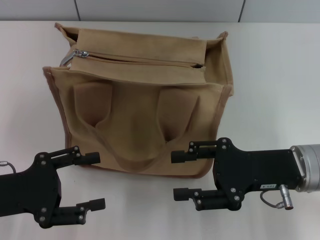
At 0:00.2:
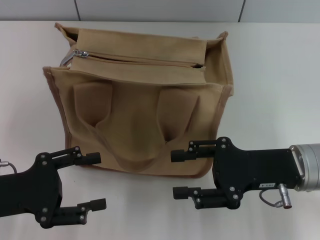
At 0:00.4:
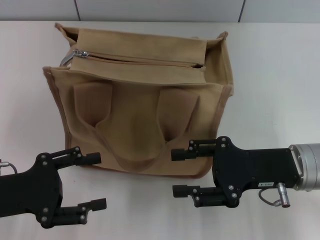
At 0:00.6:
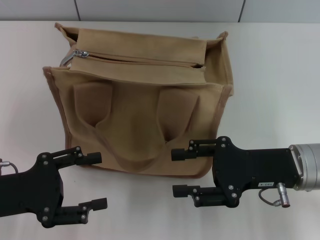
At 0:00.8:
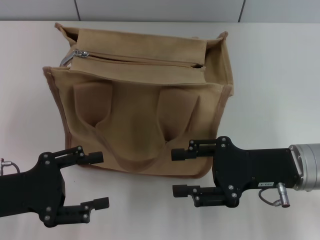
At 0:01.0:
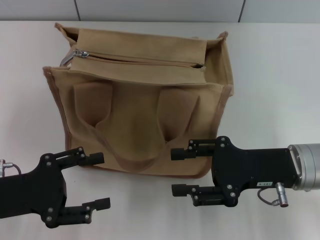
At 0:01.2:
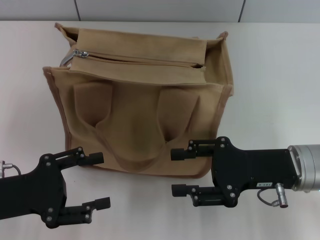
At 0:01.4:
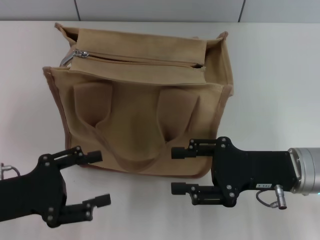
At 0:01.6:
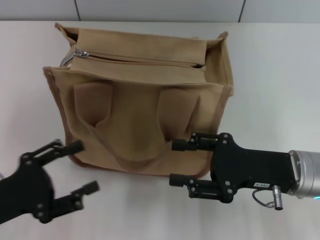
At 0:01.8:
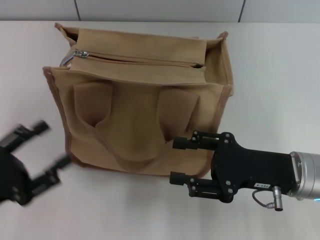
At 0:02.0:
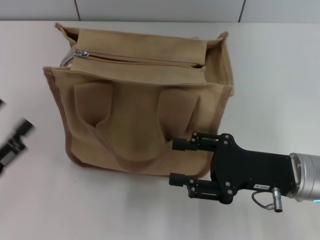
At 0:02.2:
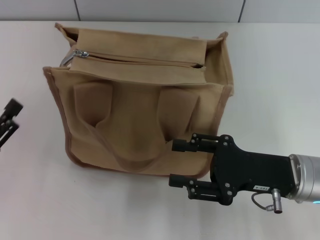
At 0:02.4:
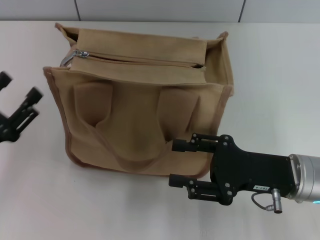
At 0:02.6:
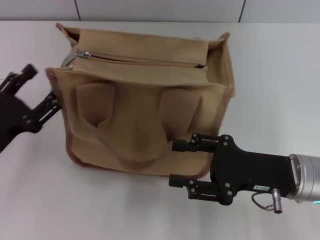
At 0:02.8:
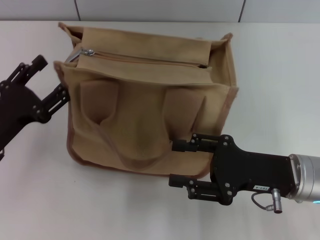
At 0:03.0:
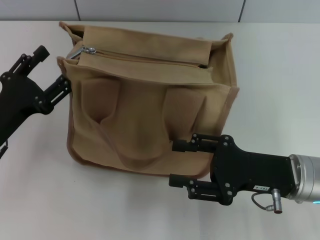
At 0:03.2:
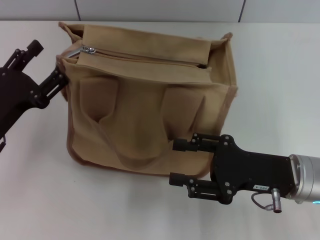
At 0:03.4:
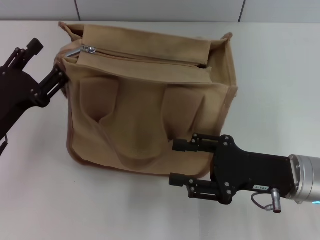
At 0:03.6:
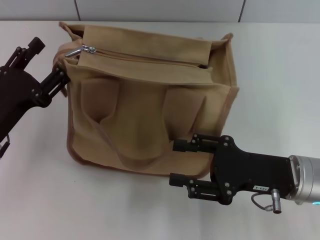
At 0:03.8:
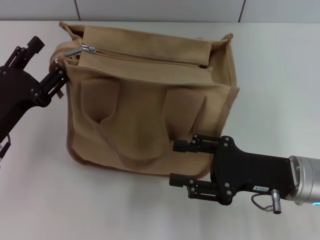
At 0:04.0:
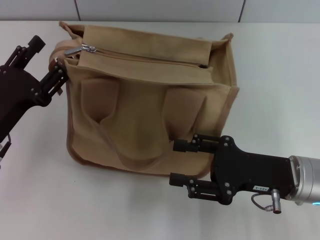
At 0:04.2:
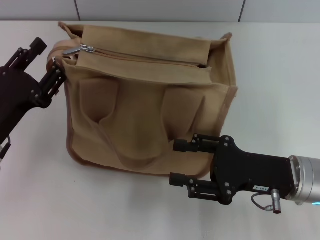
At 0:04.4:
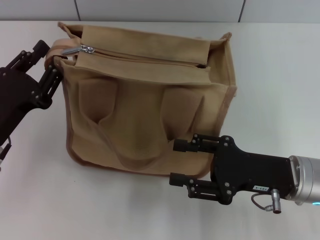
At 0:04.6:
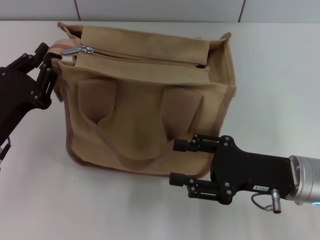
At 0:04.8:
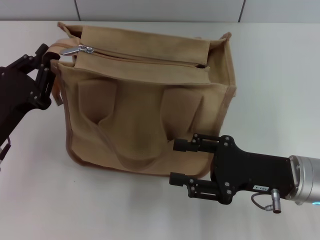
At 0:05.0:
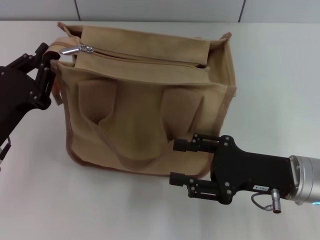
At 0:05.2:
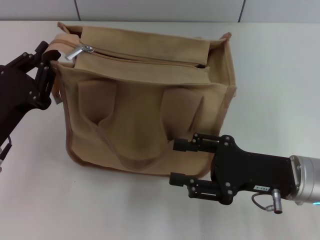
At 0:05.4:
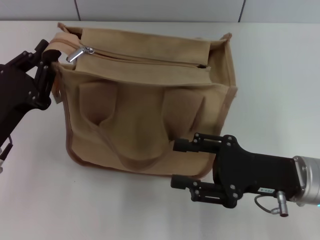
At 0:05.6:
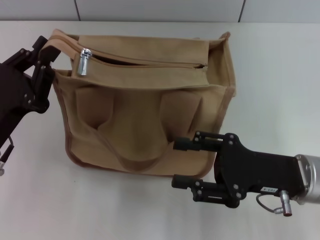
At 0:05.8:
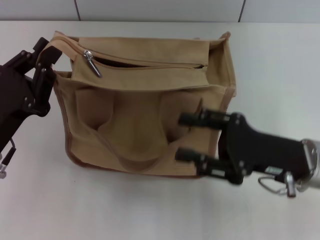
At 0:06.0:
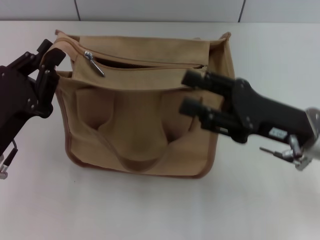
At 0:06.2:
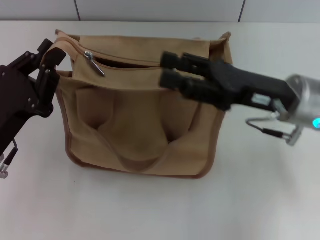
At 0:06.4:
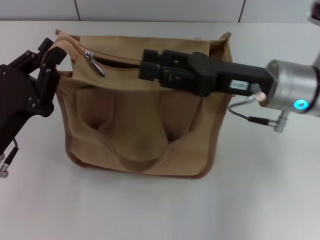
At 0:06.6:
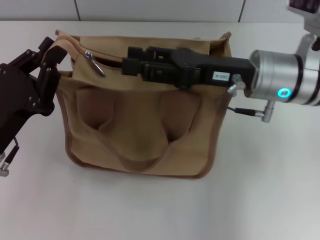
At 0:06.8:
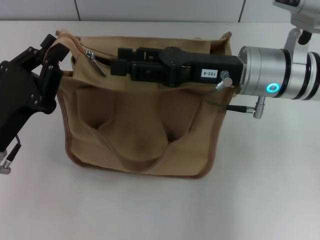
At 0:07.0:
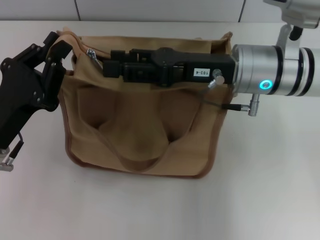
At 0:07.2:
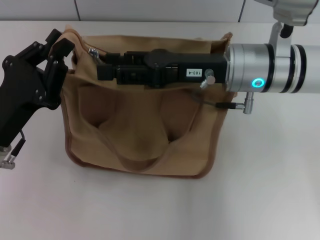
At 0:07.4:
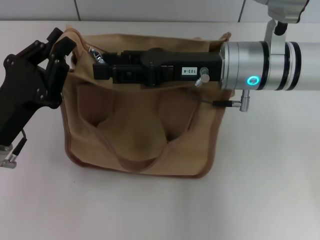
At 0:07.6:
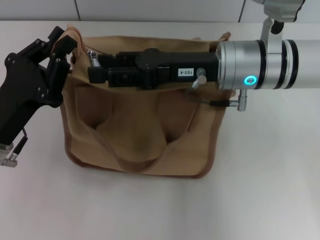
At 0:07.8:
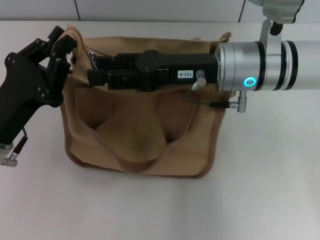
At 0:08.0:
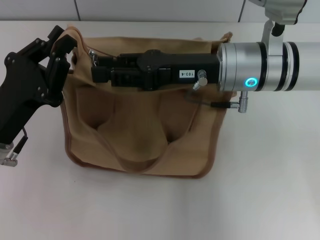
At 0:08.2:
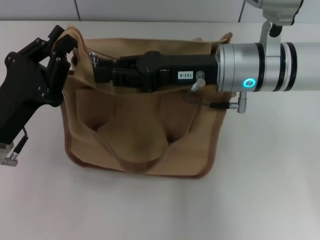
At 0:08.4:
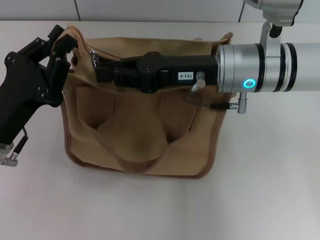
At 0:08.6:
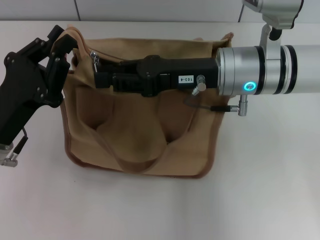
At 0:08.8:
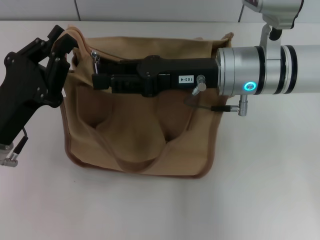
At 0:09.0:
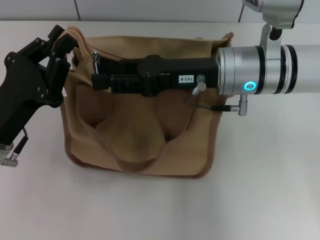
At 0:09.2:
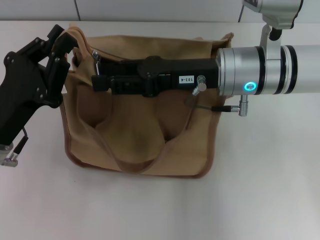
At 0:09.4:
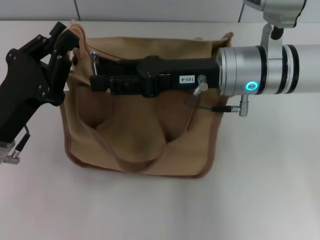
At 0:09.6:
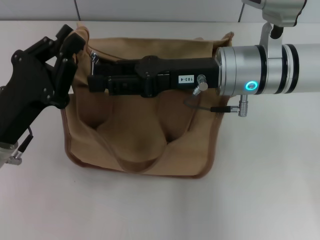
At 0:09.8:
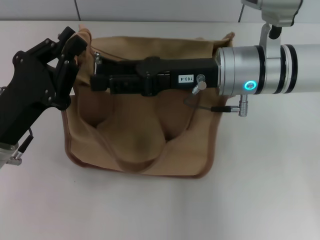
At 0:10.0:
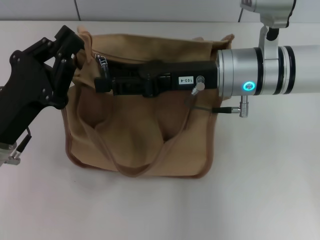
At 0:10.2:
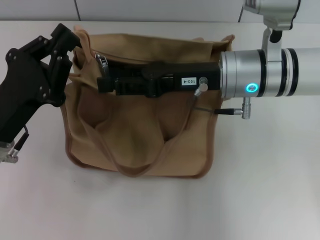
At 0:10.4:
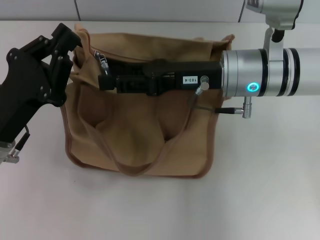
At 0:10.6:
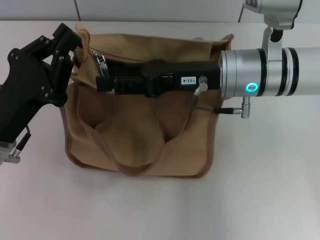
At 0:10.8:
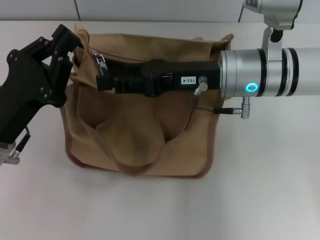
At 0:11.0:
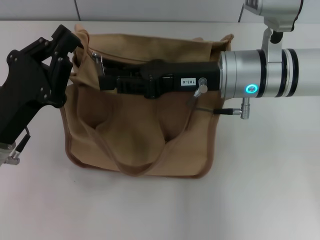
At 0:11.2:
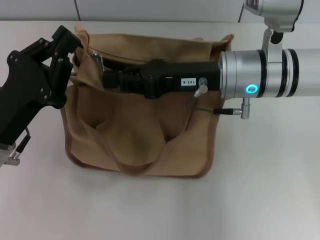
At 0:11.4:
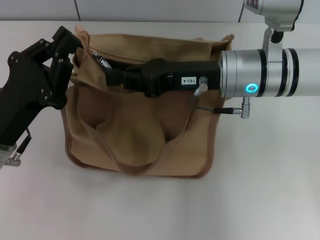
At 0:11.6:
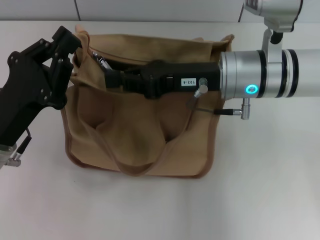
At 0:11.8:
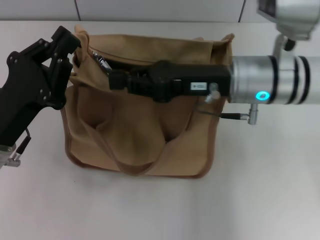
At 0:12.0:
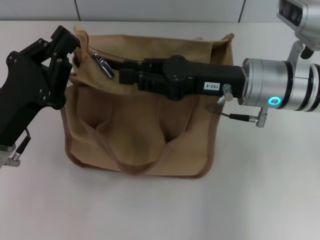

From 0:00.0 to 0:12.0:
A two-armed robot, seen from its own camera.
From 0:00.0 to 0:01.6: There are only small adjustments of the grippers.
From 0:01.6 to 0:03.0: The left gripper travels forward by some 10 cm.
From 0:03.0 to 0:04.4: There are only small adjustments of the grippers.
From 0:04.4 to 0:06.0: The right gripper moves some 5 cm. Meanwhile the left gripper closes its fingers.
From 0:06.0 to 0:07.6: The right gripper is displaced to the left, forward and upward by about 15 cm.
From 0:07.6 to 0:09.0: The right gripper closes and opens again.
From 0:09.0 to 0:10.4: Both grippers stay put.
From 0:10.4 to 0:12.0: The right gripper closes.

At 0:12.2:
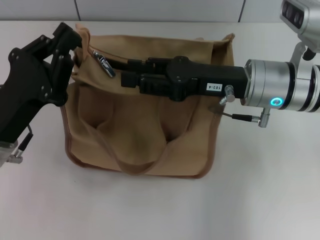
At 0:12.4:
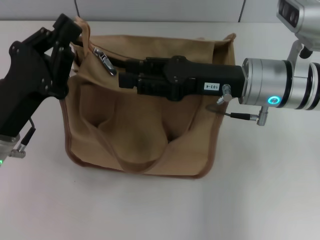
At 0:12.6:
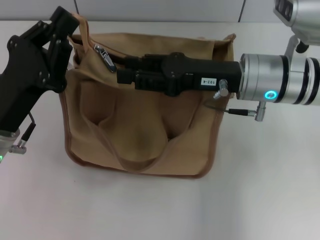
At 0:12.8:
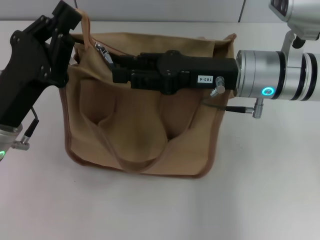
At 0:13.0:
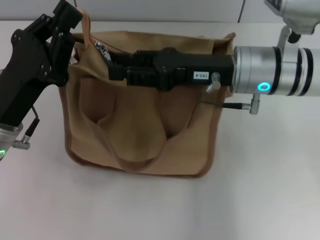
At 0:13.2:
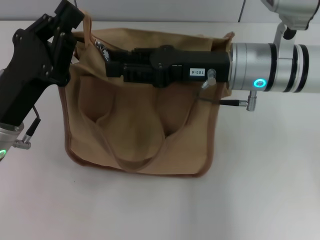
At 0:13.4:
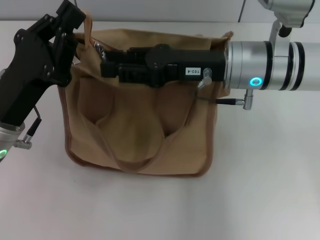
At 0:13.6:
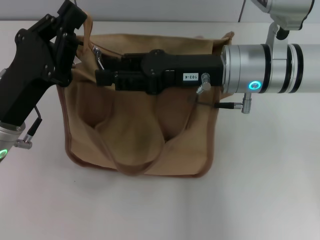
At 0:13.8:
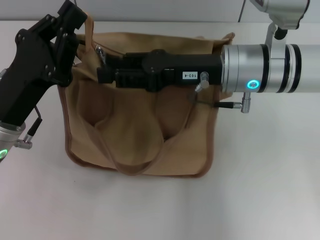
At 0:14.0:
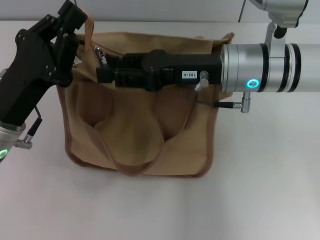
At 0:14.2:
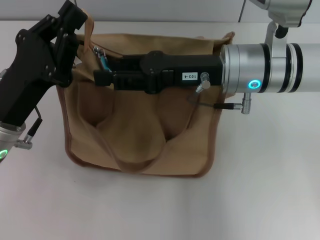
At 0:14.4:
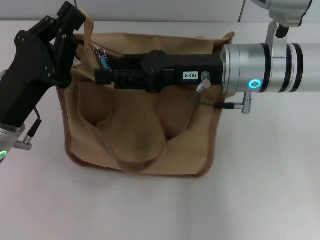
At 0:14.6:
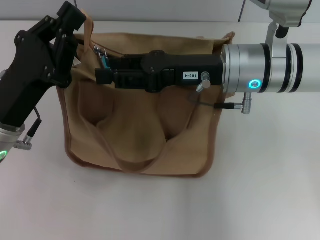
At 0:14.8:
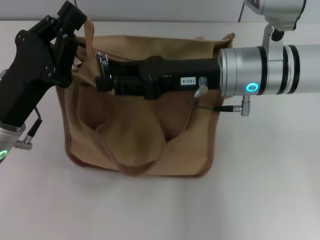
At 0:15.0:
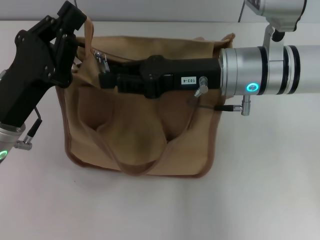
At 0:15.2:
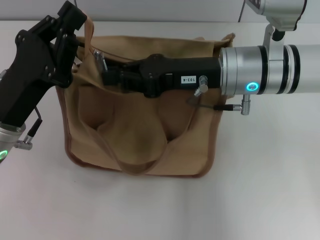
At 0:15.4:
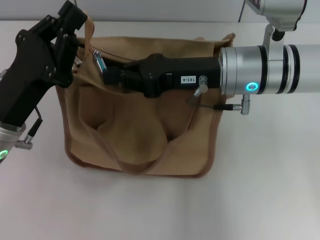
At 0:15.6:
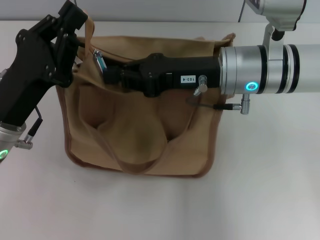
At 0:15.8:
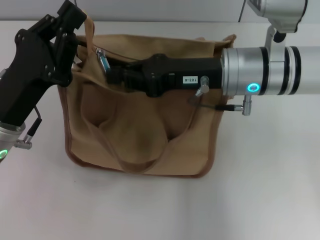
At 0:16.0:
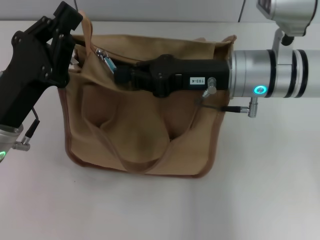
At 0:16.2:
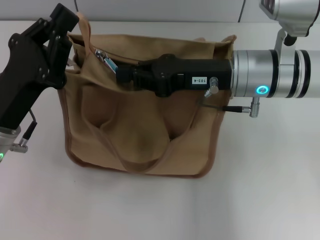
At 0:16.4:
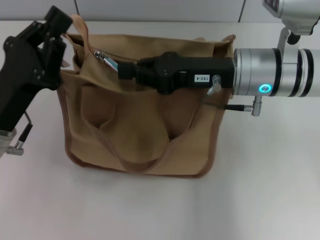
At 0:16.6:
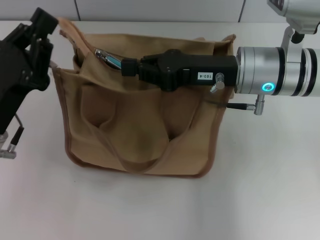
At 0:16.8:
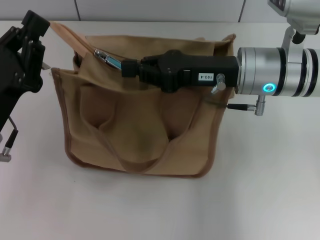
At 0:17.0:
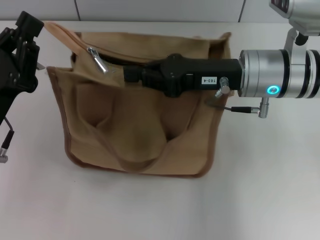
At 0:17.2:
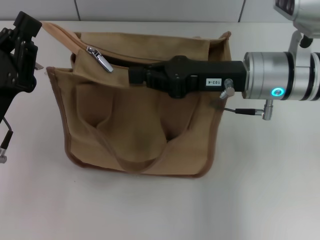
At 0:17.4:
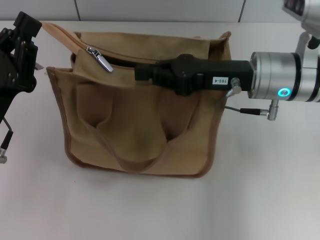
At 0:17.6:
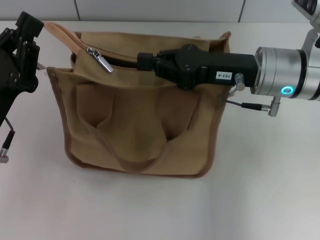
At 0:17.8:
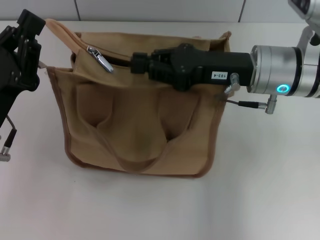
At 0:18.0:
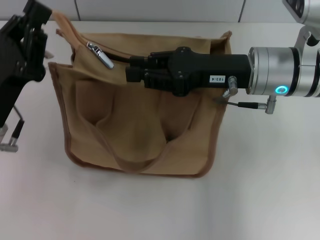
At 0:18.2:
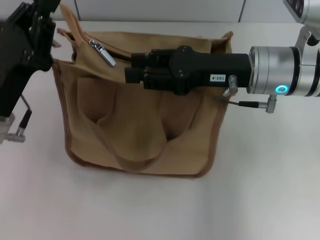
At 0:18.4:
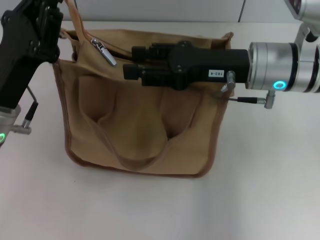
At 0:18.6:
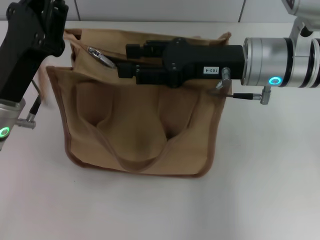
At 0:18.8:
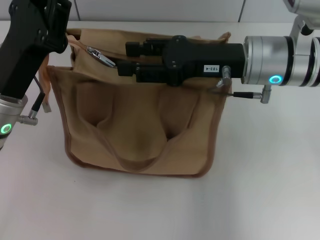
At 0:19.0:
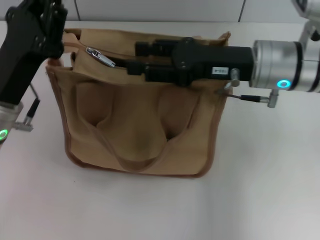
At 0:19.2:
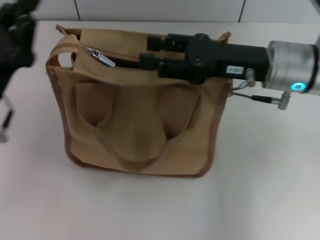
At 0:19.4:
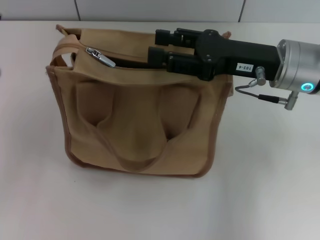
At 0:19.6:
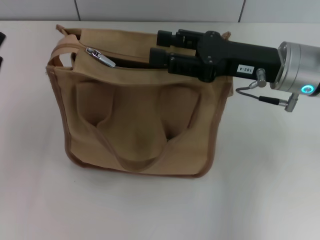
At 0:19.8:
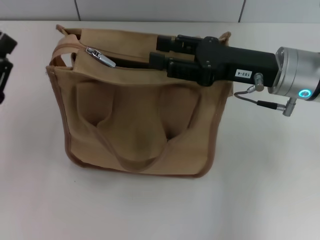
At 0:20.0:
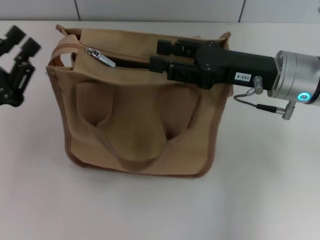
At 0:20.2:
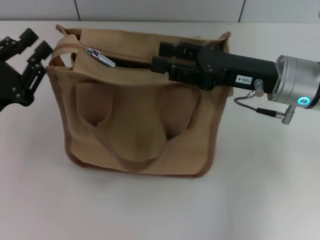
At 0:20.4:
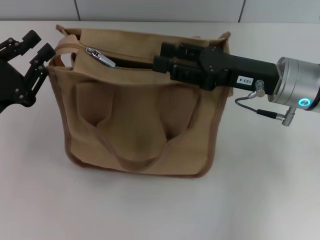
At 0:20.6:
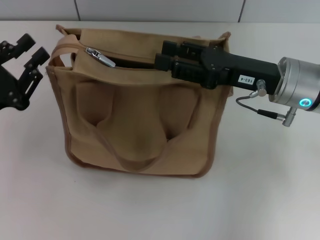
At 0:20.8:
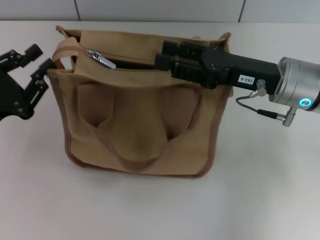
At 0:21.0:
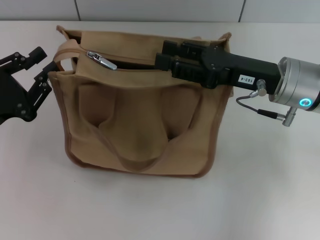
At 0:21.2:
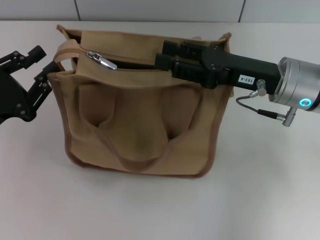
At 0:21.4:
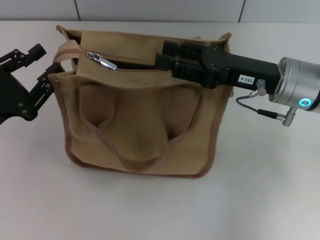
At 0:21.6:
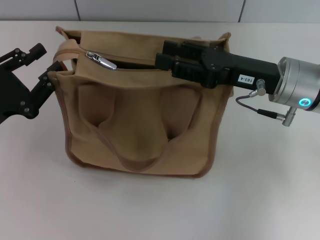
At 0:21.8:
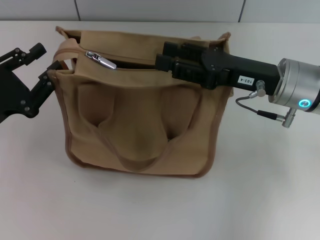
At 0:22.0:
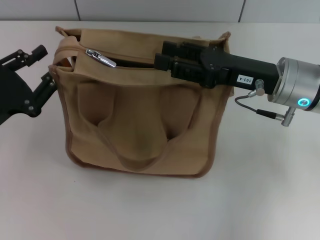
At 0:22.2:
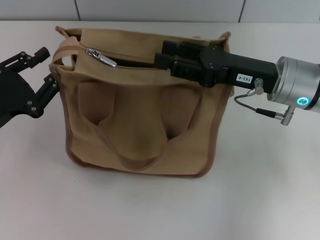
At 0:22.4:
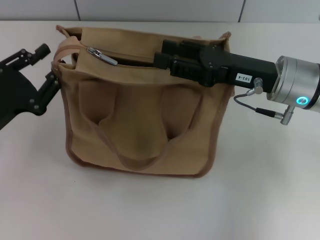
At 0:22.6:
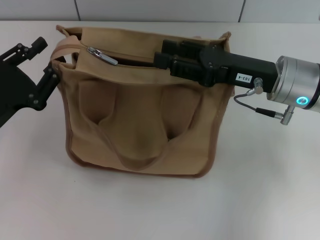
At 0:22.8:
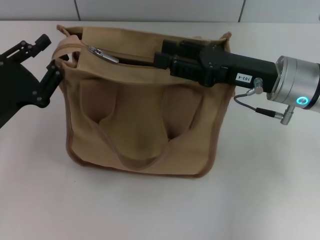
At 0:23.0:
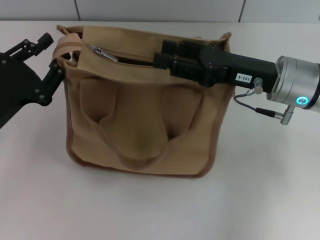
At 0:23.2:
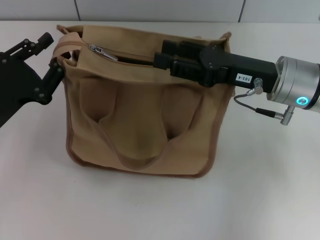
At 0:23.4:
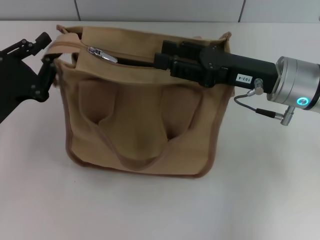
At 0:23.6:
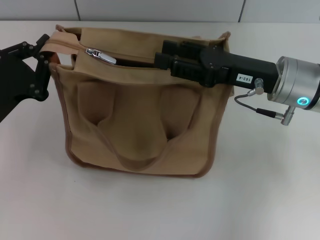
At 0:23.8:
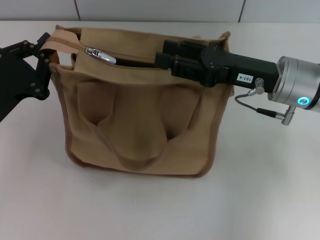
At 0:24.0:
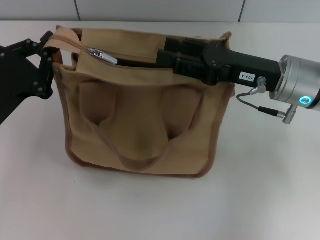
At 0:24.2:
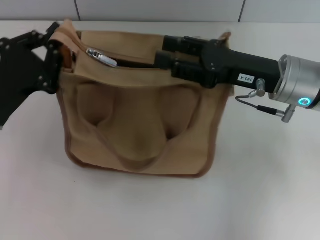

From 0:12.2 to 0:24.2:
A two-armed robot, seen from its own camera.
From 0:13.8 to 0:15.2: The right gripper closes up.
From 0:15.2 to 0:16.6: The grippers make only small movements.
From 0:16.6 to 0:18.2: The right gripper opens up.
From 0:18.2 to 0:19.8: The left gripper heads to the left, covering about 10 cm. Meanwhile the right gripper opens up.
From 0:19.8 to 0:21.2: The grippers stay close to where they were, moving slightly.
From 0:21.2 to 0:22.6: The grippers make only small movements.
From 0:22.6 to 0:24.2: The left gripper closes.
